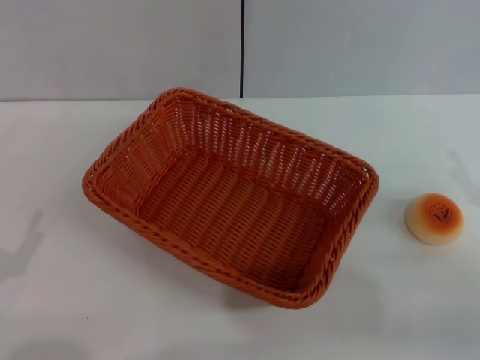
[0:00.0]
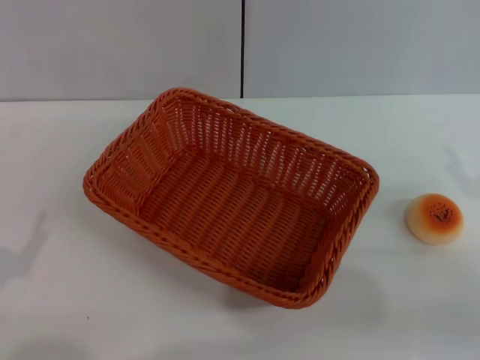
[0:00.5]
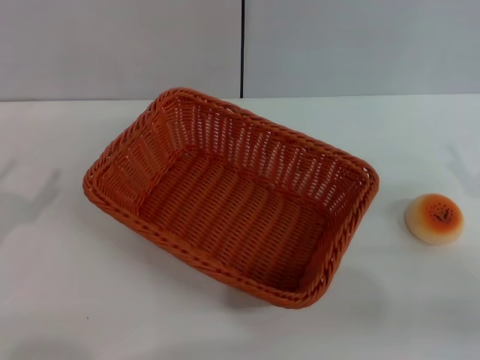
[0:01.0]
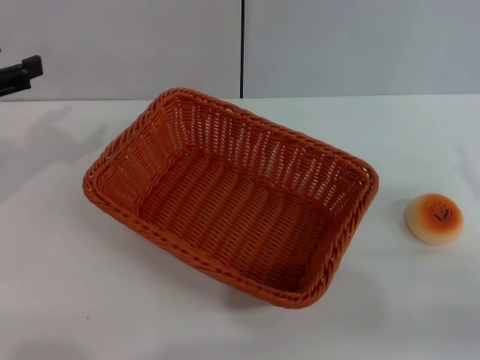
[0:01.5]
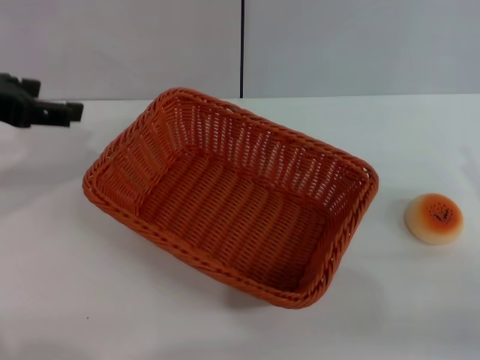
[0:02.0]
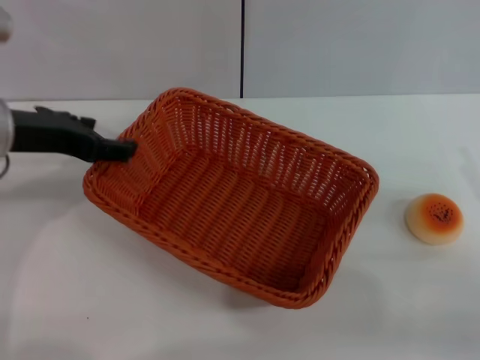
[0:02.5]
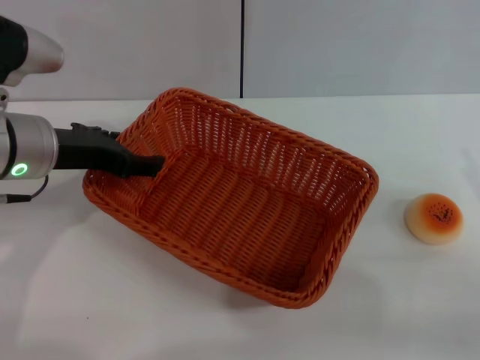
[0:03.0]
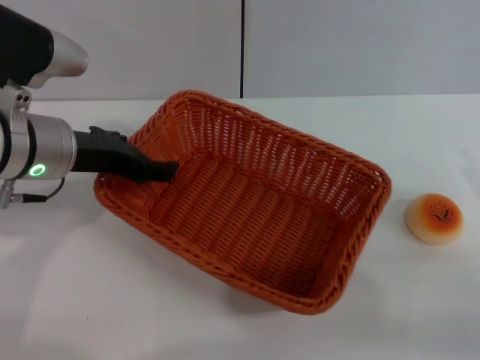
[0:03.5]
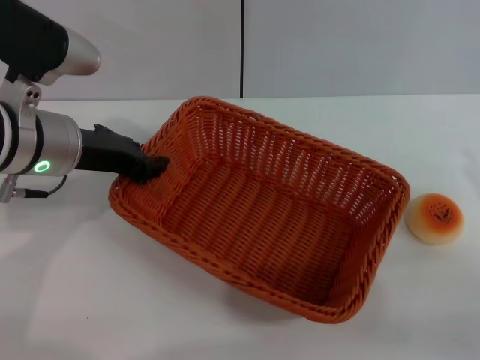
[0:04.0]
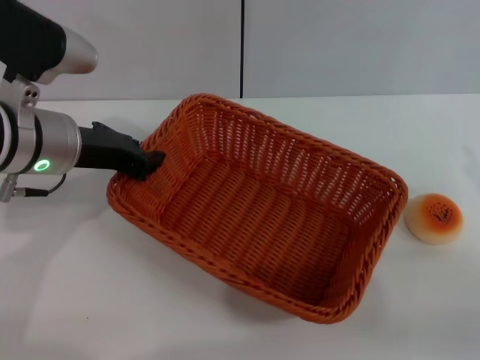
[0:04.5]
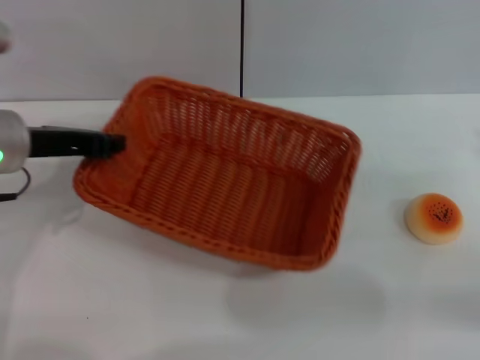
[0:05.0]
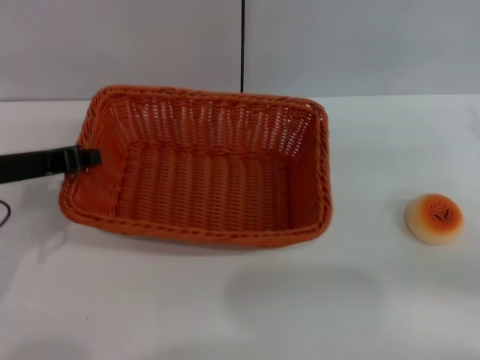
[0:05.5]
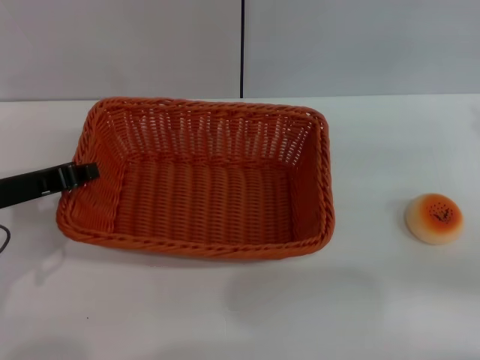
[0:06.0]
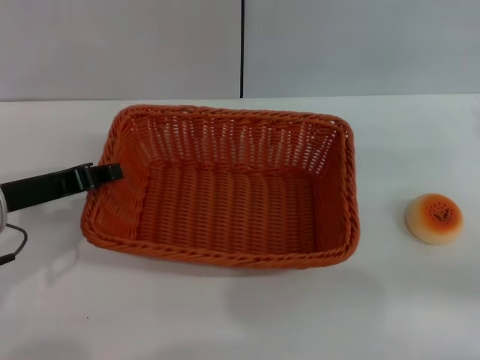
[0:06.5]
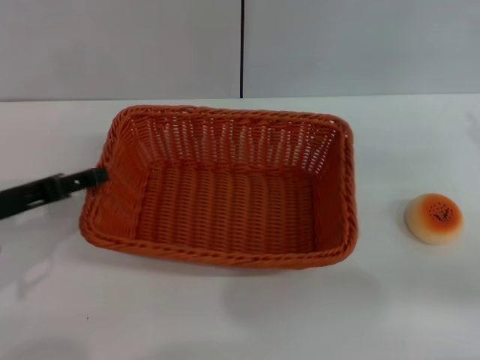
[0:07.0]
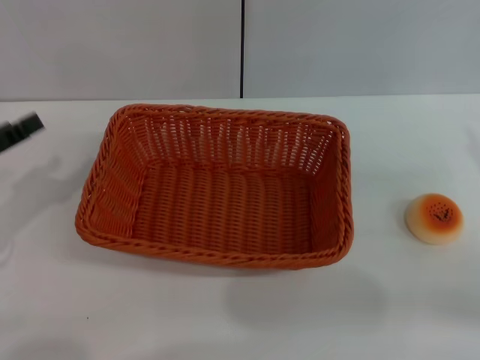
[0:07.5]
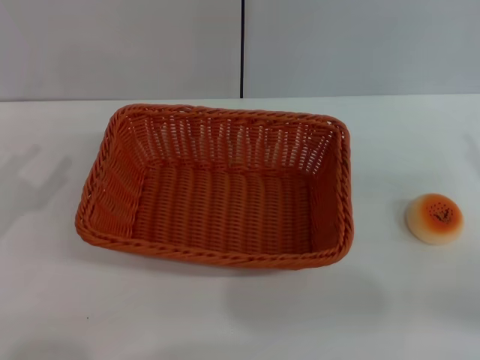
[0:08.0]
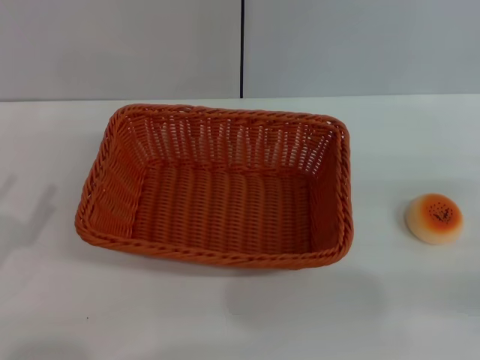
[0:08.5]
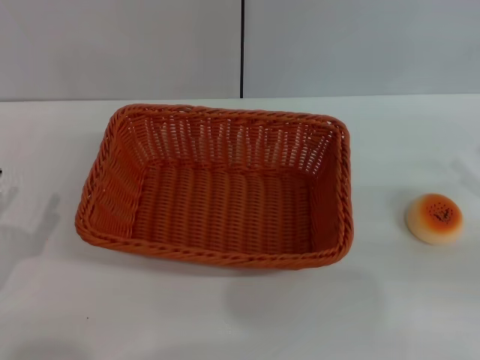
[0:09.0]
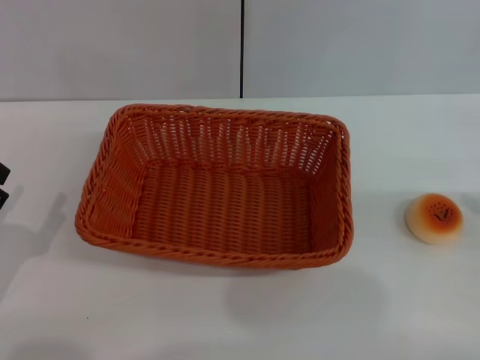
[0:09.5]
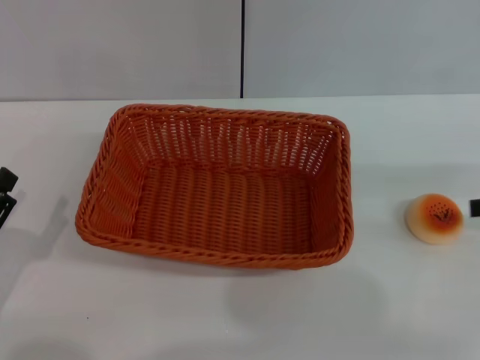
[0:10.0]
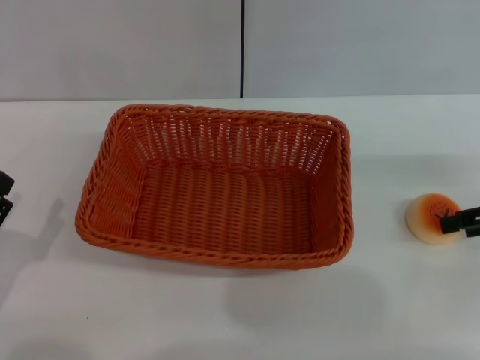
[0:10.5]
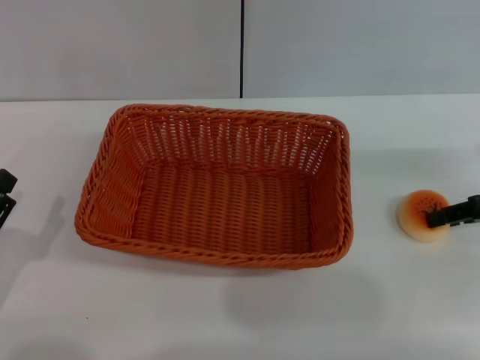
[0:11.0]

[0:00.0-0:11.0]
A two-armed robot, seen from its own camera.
Step, 0:00.0 to 0:07.0: Move the basket to the center of view with the left gripper.
0:00.0 to 0:02.0: The left gripper is displaced upward and forward by roughly 25 cm.
0:02.0 to 0:03.5: The left gripper goes roughly 15 cm to the right and downward.
0:03.5 to 0:05.5: The left gripper heads to the left, covering some 5 cm, and closes up, while the right gripper is displaced forward by about 5 cm.
0:05.5 to 0:07.5: The left gripper moves to the left and backward, roughly 10 cm, and opens up.
0:09.0 to 0:11.0: The right gripper travels forward by approximately 10 cm.

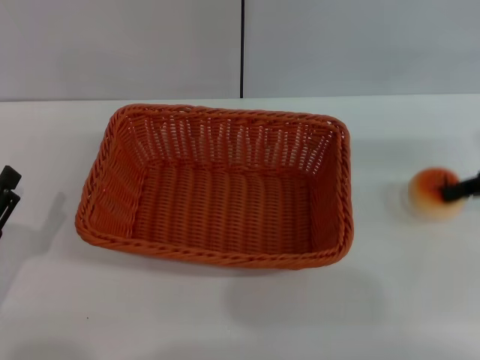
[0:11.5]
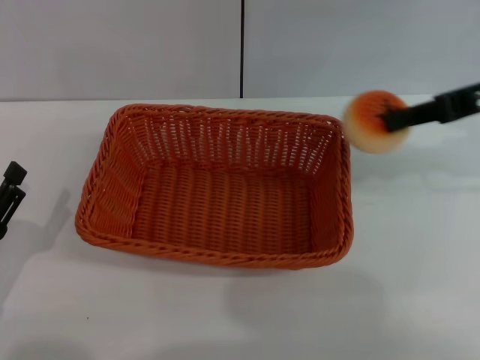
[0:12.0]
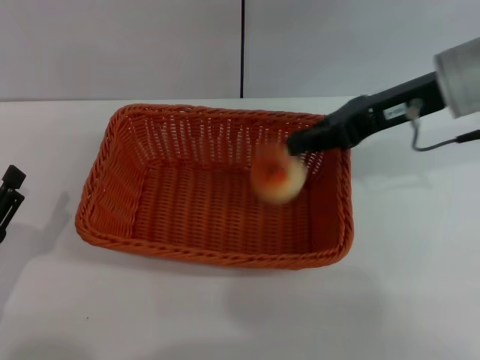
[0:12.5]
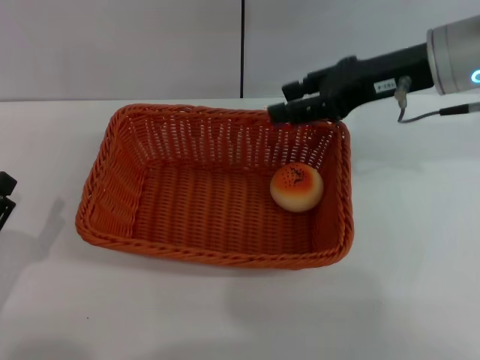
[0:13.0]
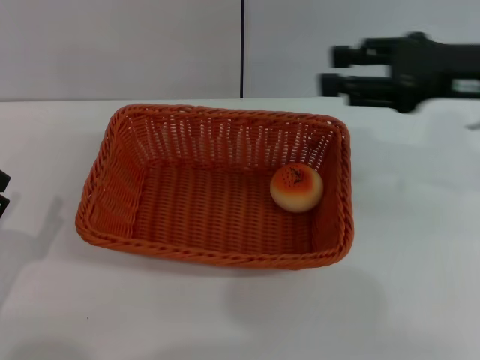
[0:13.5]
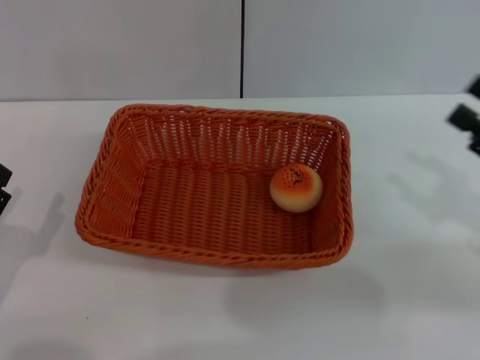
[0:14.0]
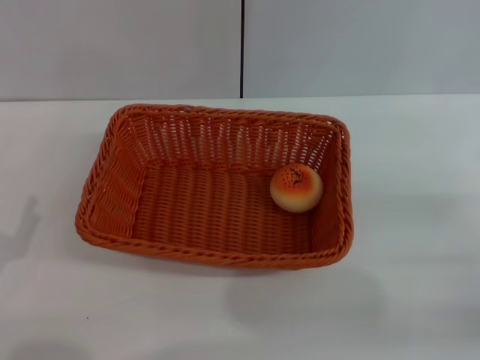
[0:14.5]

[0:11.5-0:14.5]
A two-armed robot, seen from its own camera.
Step, 0:12.0 to 0:13.0: Place the egg yolk pastry into the basket with the right gripper.
0:11.5 to 0:13.0: The right gripper shifts approximately 15 cm to the left, and opens.
0:13.0 to 0:14.5: The right gripper heads backward, to the right and downward, covering approximately 30 cm.

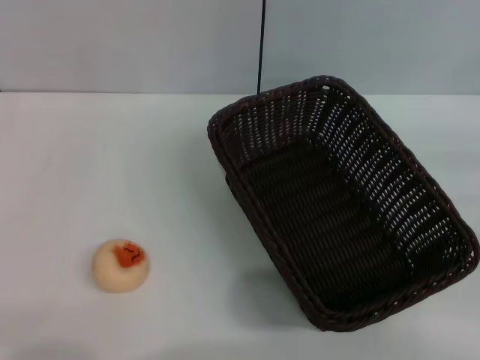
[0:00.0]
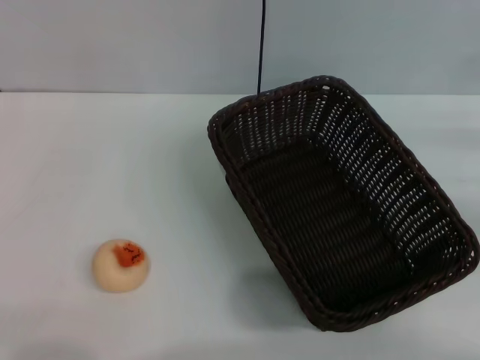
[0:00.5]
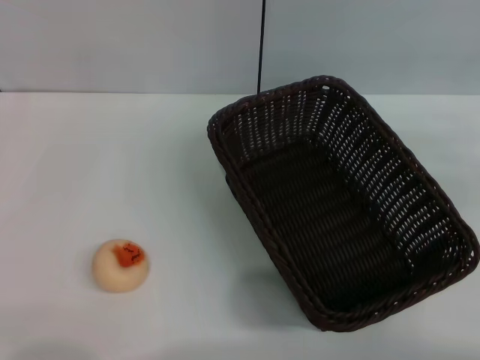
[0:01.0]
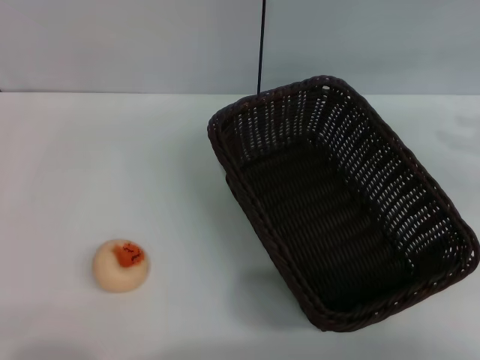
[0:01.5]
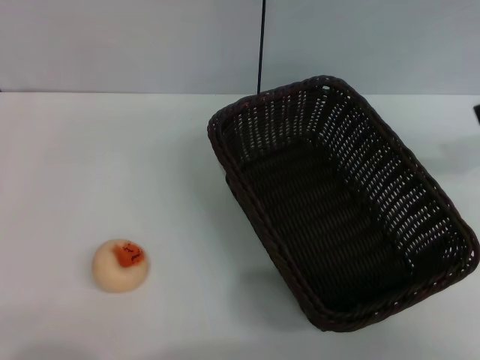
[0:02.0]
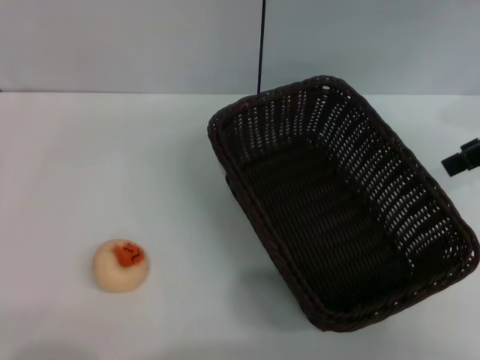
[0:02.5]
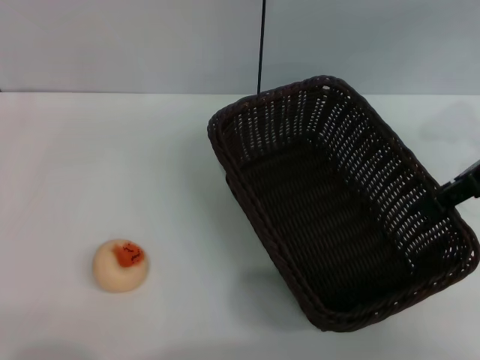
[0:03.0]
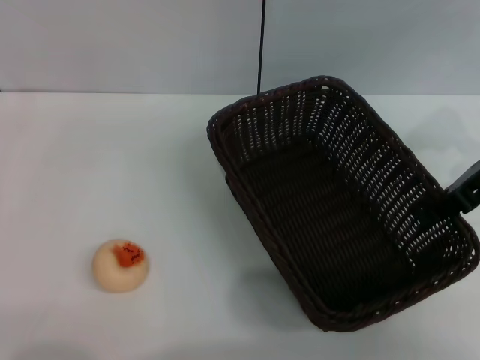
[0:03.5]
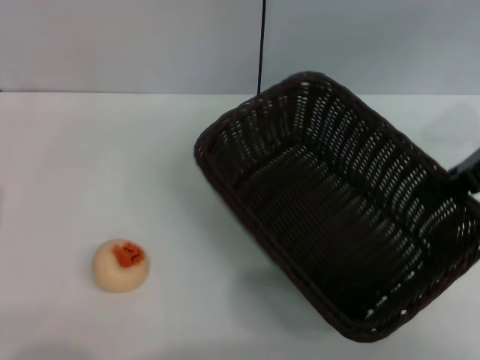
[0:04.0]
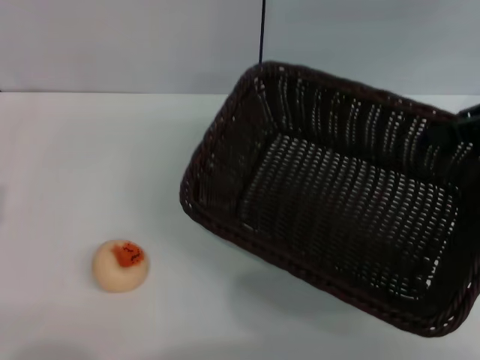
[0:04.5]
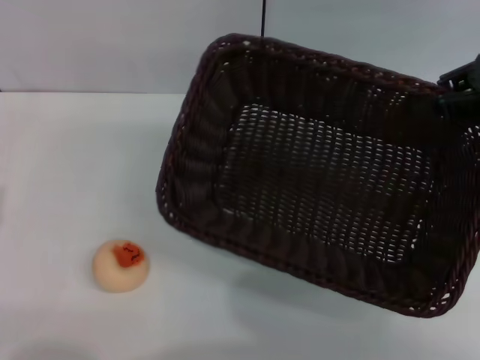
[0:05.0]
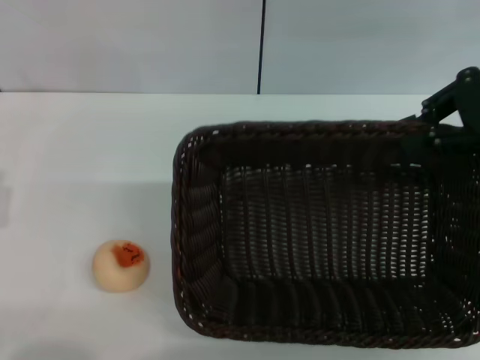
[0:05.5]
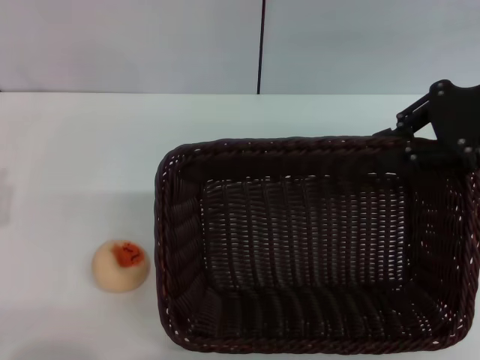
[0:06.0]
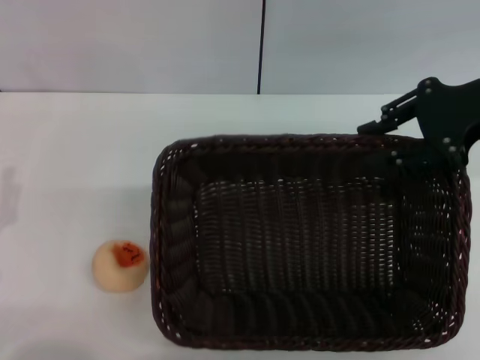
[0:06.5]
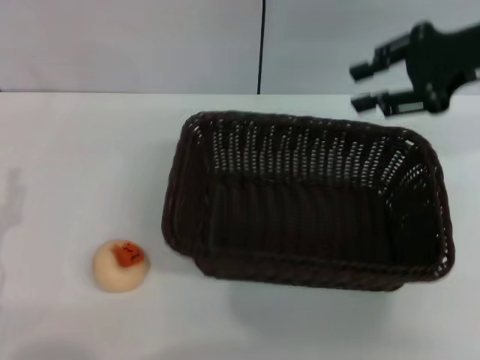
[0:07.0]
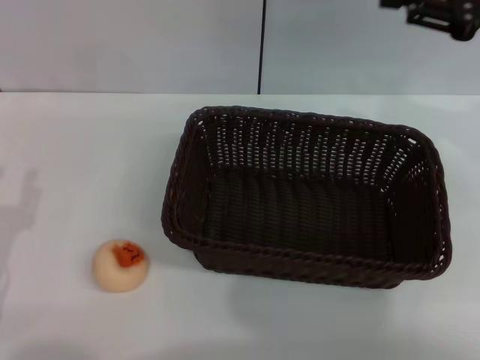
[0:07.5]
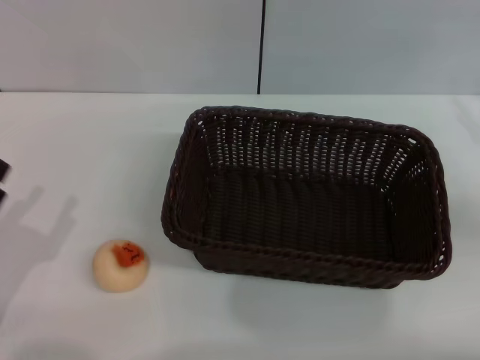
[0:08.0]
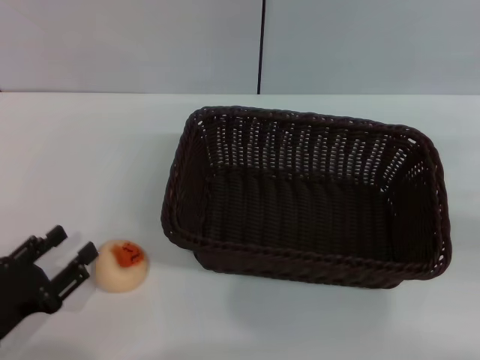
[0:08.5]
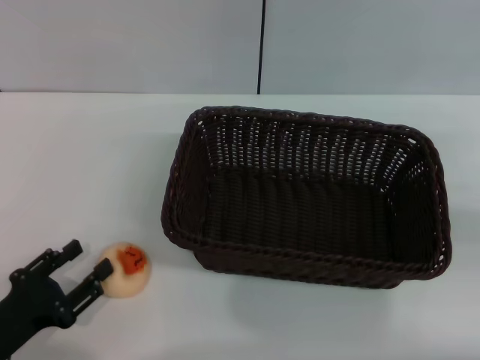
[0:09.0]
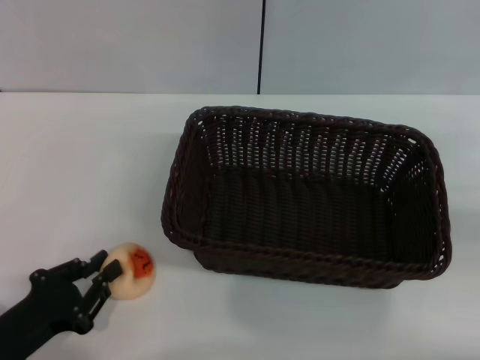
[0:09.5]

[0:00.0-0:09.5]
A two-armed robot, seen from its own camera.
Step, 0:00.0 to 0:07.0: Move the basket to the center of view with the right gripper.
0:02.0 to 0:04.0: The right gripper goes some 10 cm downward and to the left, and closes up.
0:05.5 to 0:07.5: The right gripper opens up.
0:07.5 to 0:09.5: The right gripper shifts some 20 cm downward, to the right and backward; the left gripper goes approximately 5 cm downward.

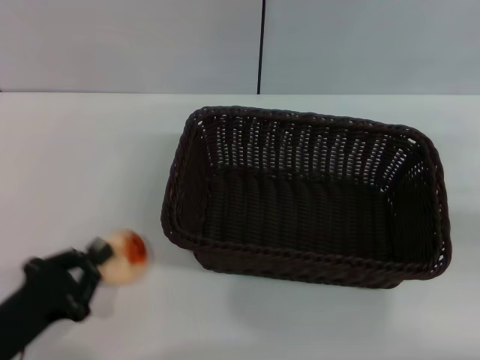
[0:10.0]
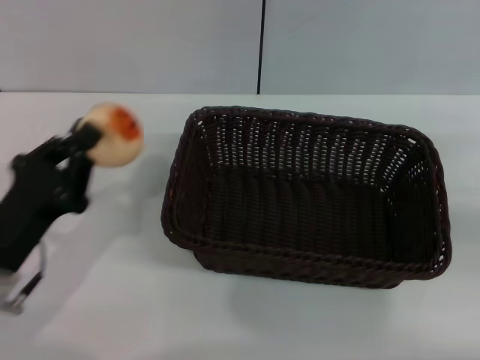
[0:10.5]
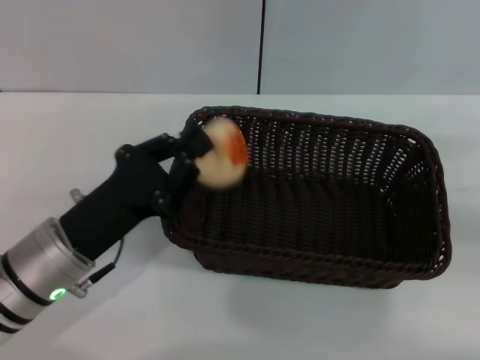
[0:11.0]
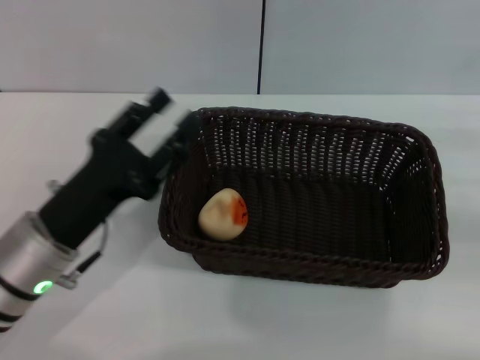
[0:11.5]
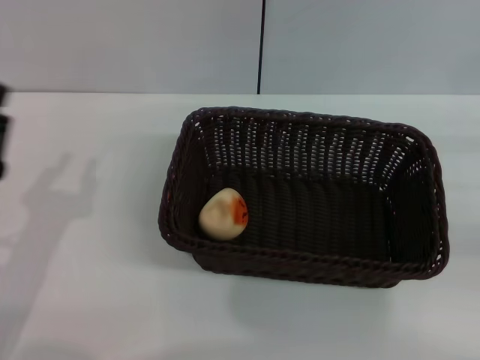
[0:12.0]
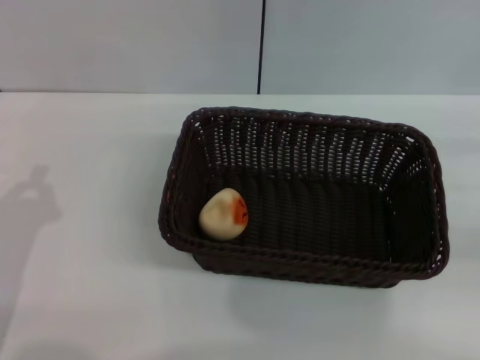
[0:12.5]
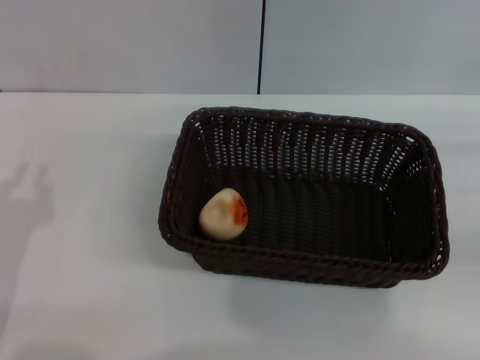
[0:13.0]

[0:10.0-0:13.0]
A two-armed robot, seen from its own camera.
Step, 0:10.5 to 0:11.5: Place the egg yolk pastry into the basket with the left gripper.
0:10.0 to 0:11.5: The left gripper goes some 10 cm forward, to the right and upward, and opens its fingers.
0:11.5 to 0:13.0: The left gripper is displaced to the left and backward by about 10 cm, and closes.
